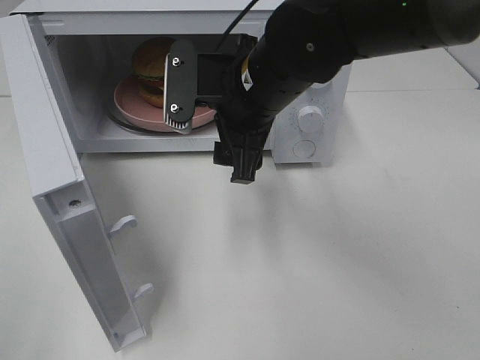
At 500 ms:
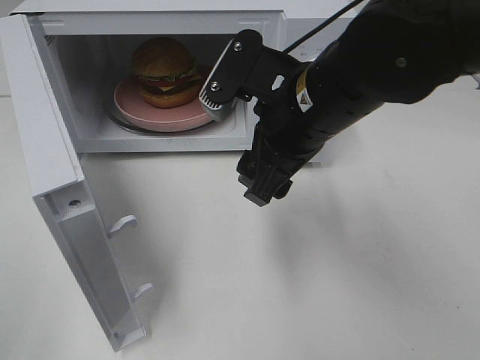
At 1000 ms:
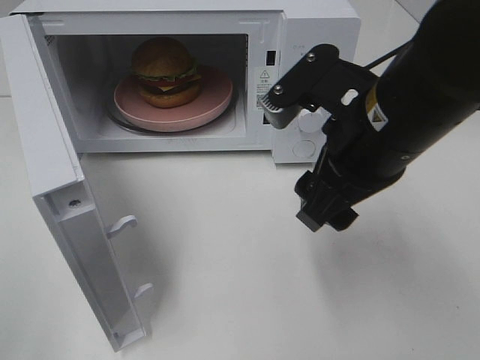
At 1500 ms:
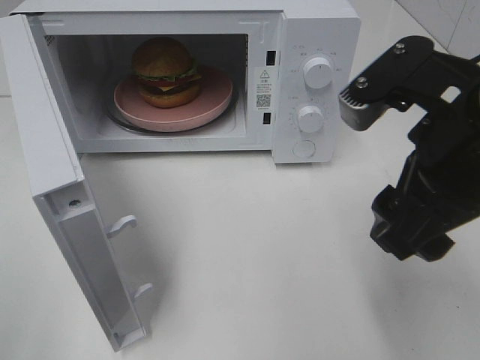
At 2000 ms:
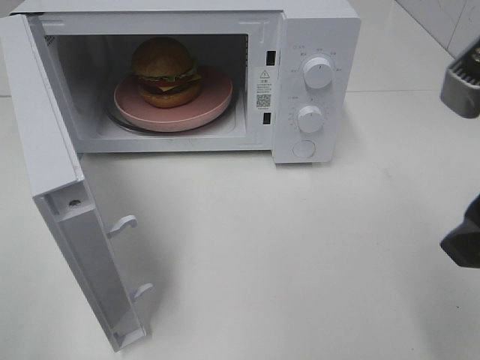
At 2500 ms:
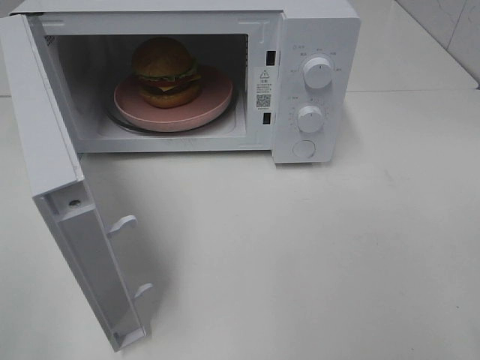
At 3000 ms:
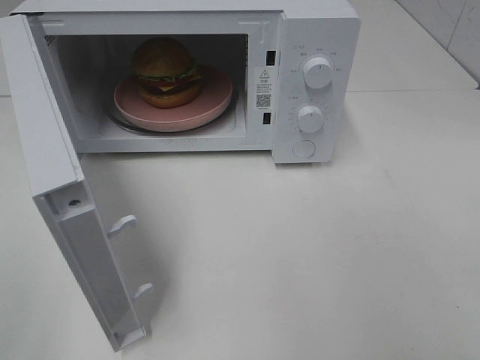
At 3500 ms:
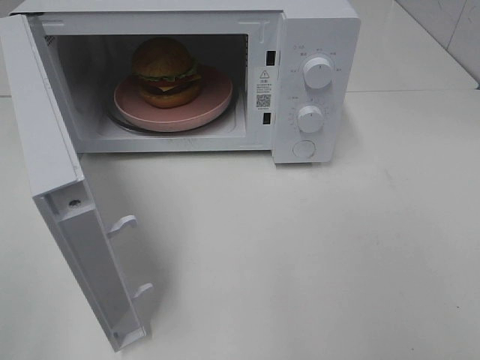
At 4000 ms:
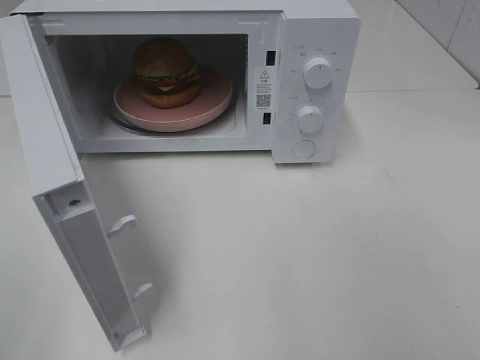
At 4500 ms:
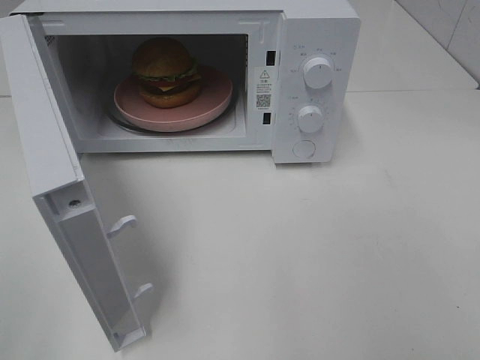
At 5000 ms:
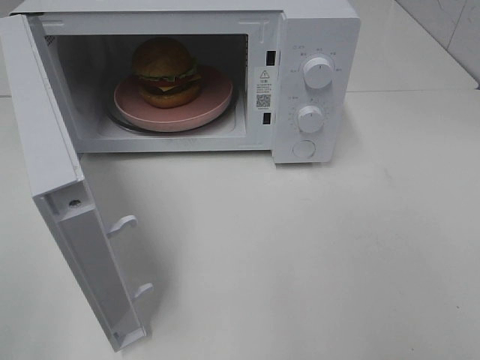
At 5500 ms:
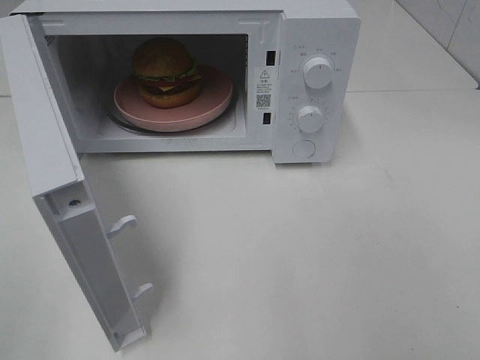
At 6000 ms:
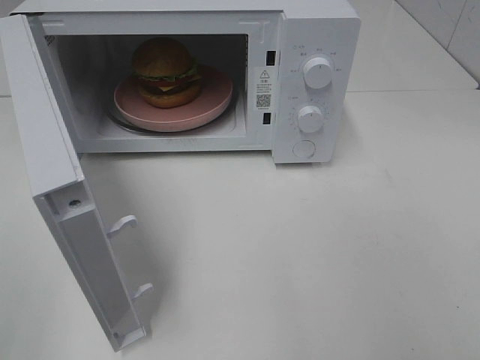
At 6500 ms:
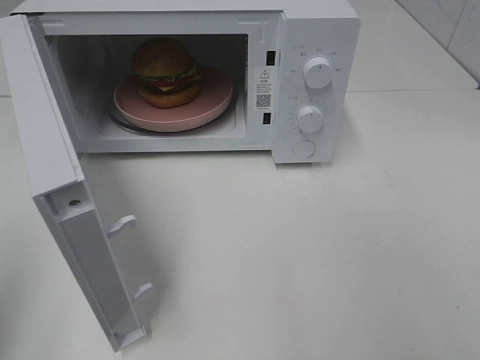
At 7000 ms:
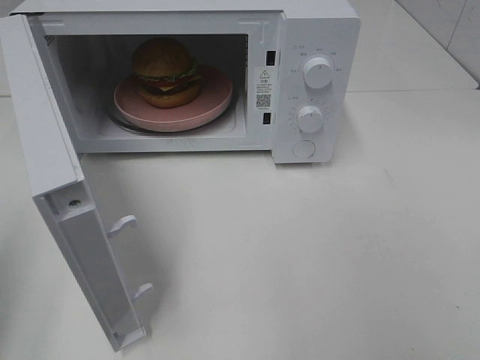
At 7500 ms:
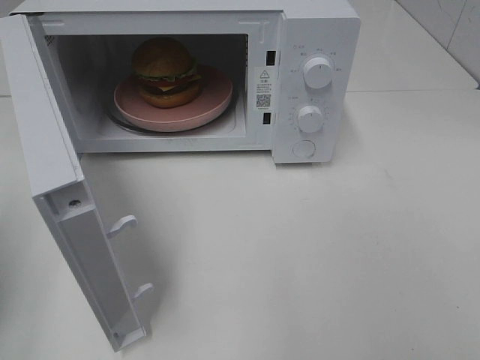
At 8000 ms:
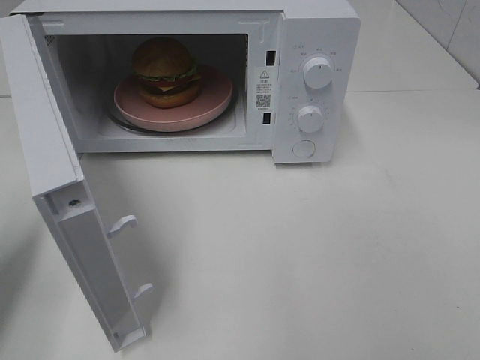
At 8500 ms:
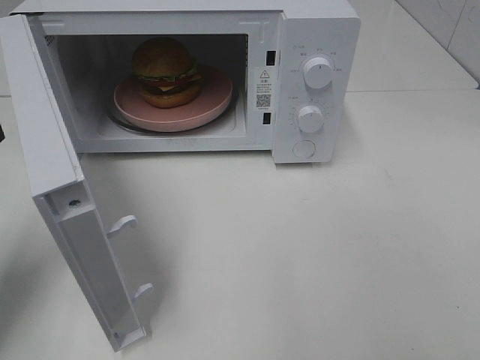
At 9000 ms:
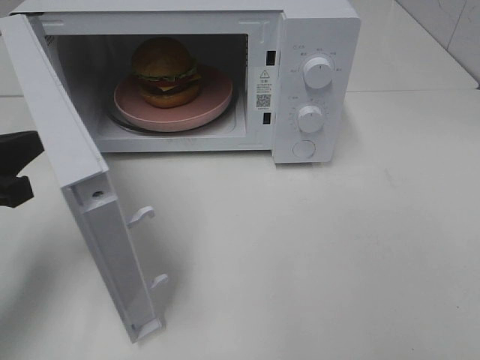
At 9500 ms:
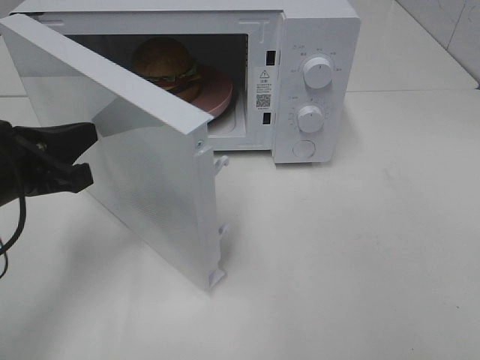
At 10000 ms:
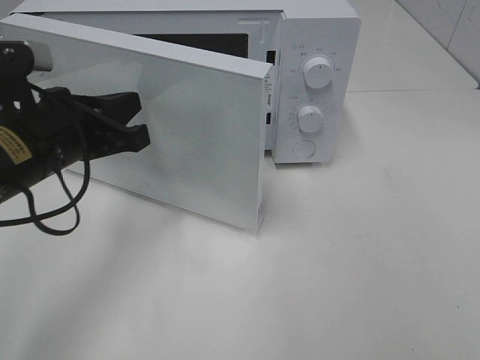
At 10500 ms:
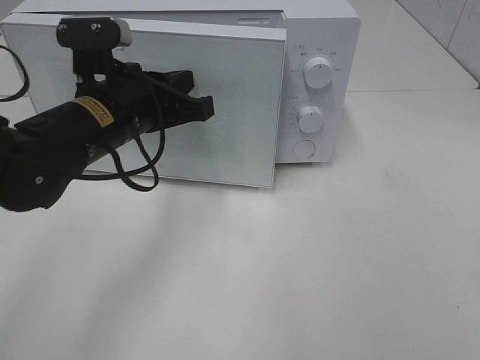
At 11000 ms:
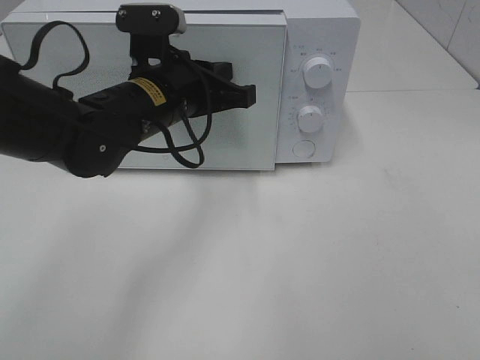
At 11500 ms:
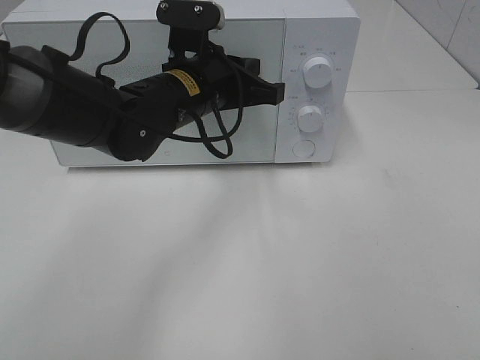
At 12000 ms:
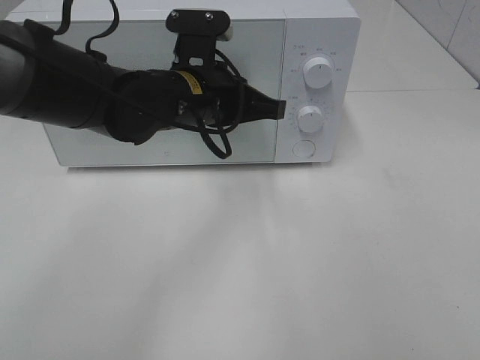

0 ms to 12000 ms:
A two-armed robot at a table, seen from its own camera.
Task of the whole recording: Heat the burger.
Step, 0 ms to 11500 ms: Left hand: close the microwave door.
0 ms to 2000 ms: The right gripper travels backward, to the right and upward by some 25 cm.
2000 ms to 4000 ms: The right gripper is displaced backward and to the right by some 15 cm.
6000 ms to 8000 ms: The left gripper is displaced forward and downward by some 20 cm, and closes.
8000 ms to 10000 ms: The left gripper is displaced to the right and forward by some 15 cm.
10000 ms to 12000 ms: The left gripper goes approximately 15 cm to the right and forward.

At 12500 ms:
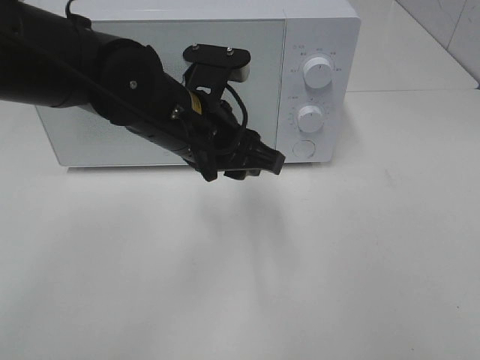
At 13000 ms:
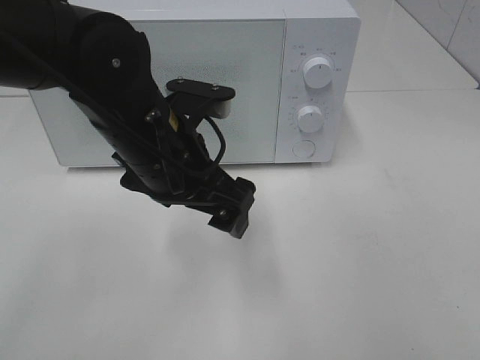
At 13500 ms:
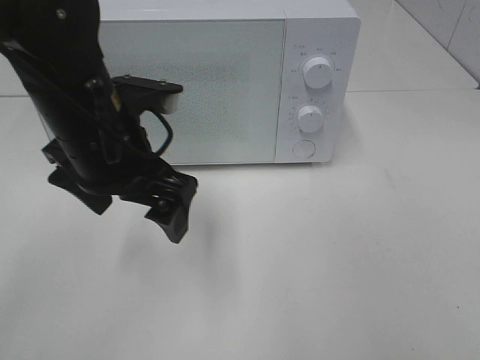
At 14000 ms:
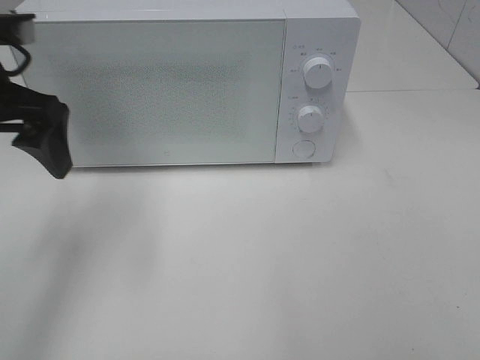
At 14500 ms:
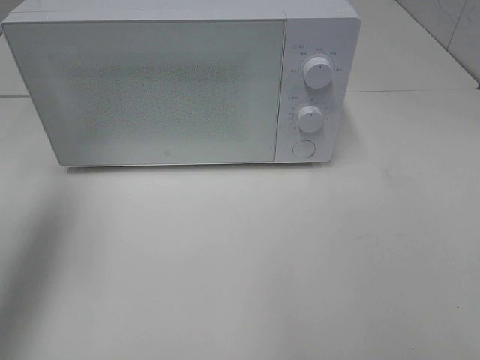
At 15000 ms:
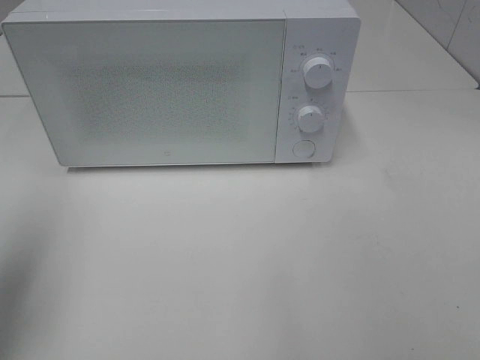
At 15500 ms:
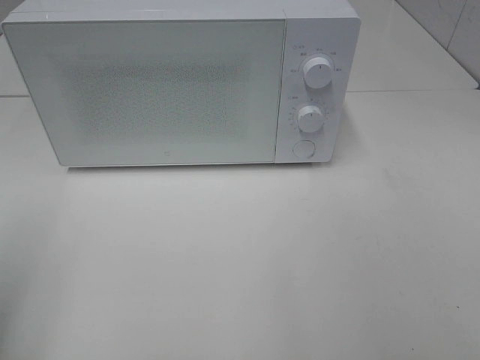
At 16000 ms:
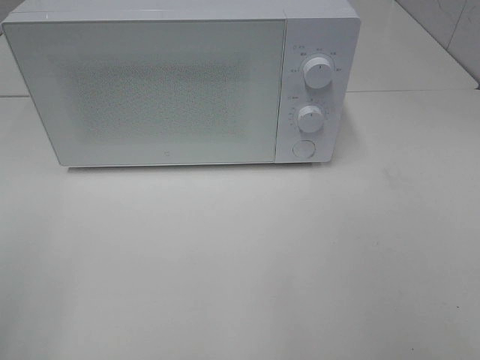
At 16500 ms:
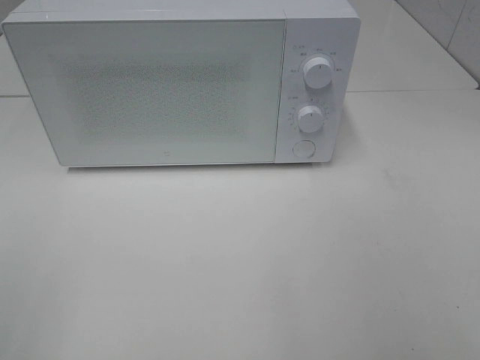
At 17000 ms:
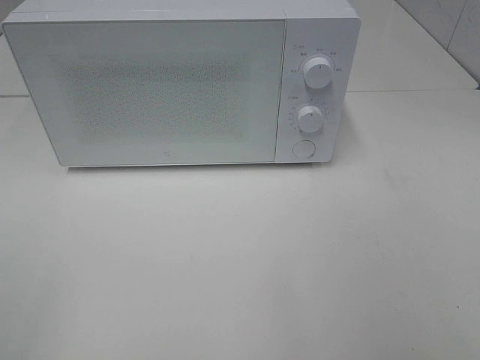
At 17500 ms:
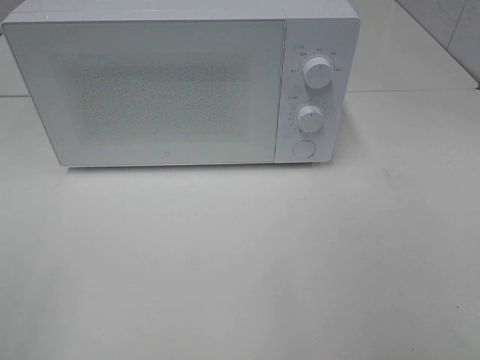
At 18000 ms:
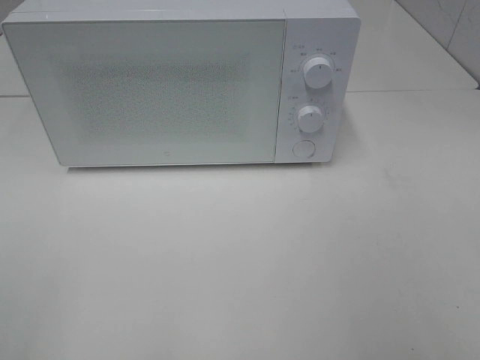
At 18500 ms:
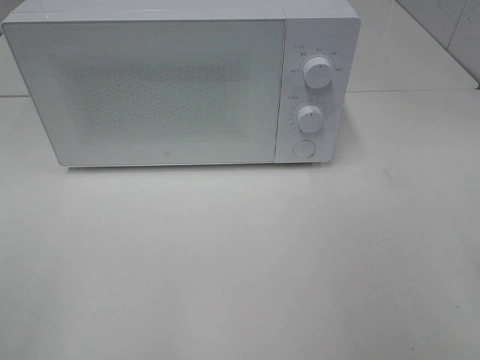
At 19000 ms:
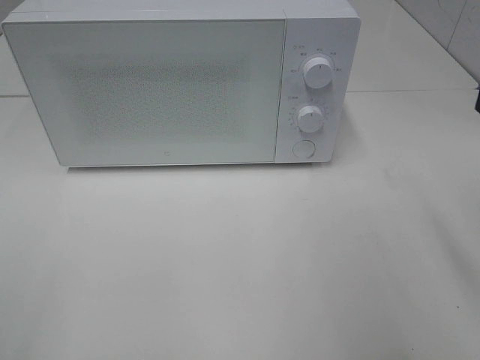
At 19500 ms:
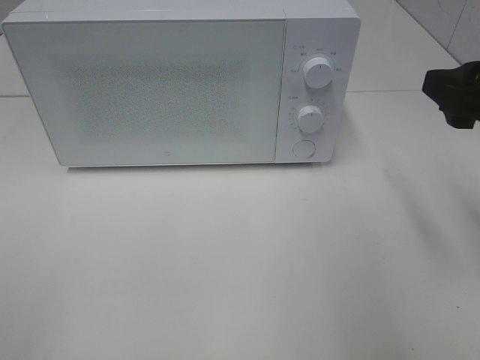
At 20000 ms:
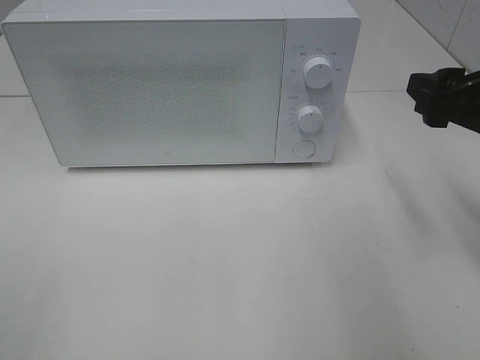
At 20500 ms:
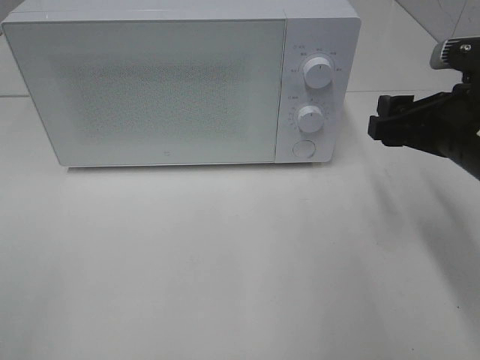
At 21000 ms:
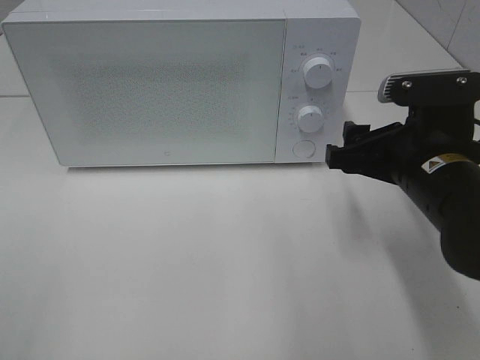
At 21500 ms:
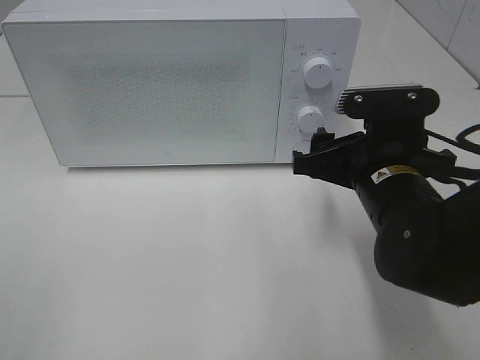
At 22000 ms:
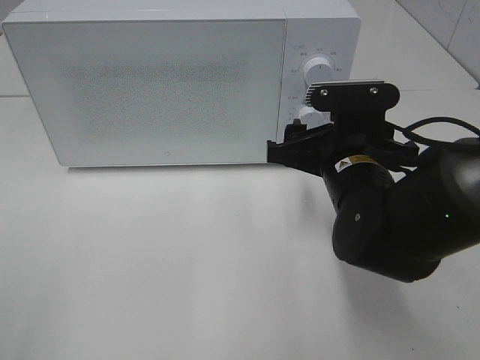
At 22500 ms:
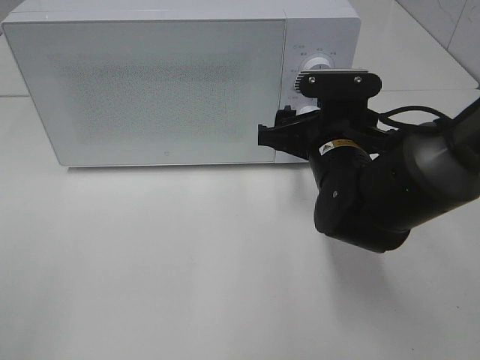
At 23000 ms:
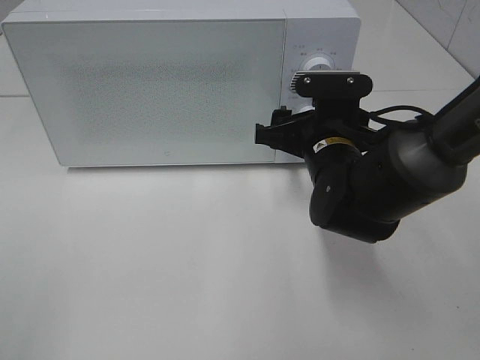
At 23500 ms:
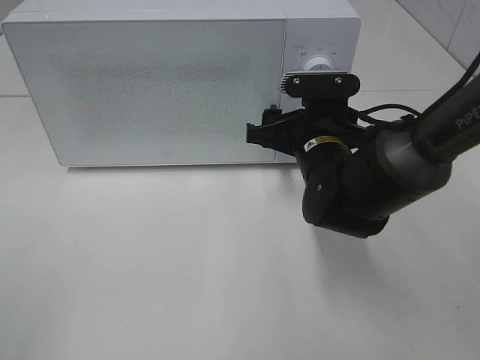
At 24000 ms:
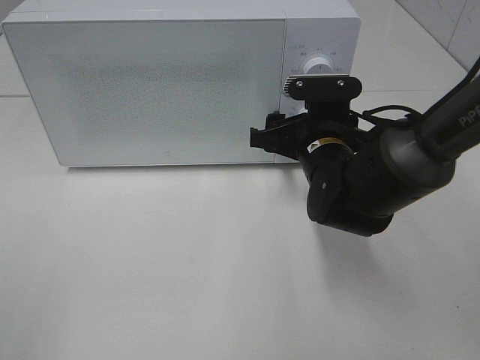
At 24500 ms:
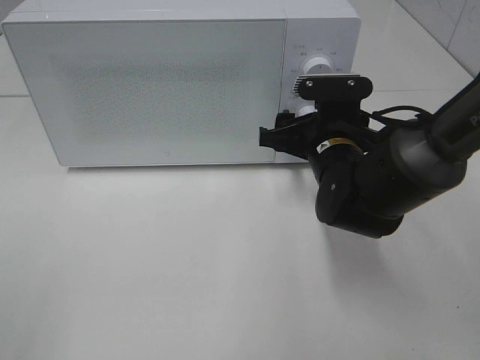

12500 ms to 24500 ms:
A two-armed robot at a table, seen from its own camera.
Task of the whole recording: Heat the burger.
12500 ms to 14500 ms: The left gripper shifts some 30 cm to the left and upward, and opens its fingers.
14500 ms to 16500 ms: The left gripper shifts some 25 cm backward.
18500 ms to 20500 ms: The right gripper heads forward and downward, covering roughly 20 cm.
20500 ms to 22500 ms: The right gripper travels to the left and downward by about 10 cm.
22500 ms to 24500 ms: The grippers move only a little.

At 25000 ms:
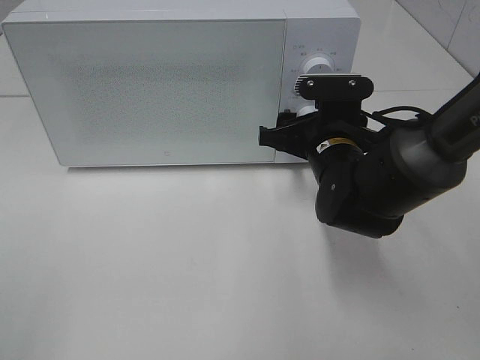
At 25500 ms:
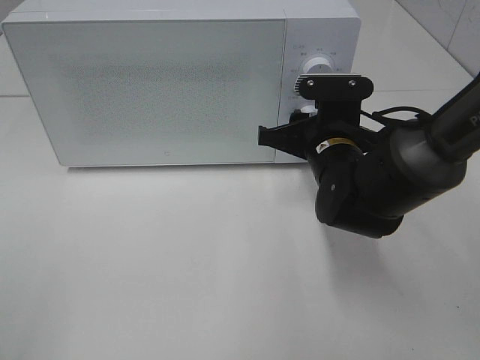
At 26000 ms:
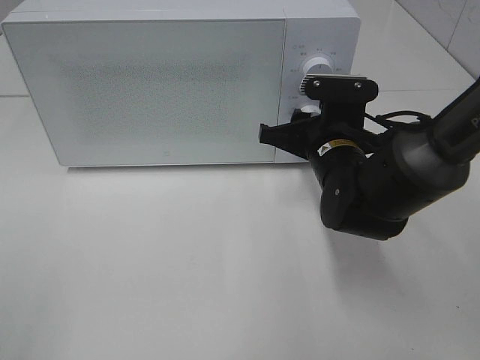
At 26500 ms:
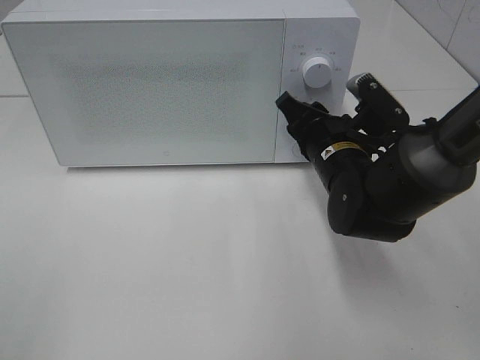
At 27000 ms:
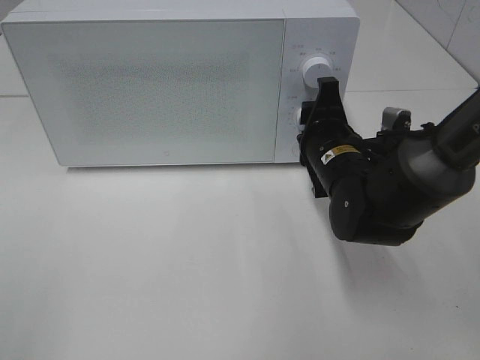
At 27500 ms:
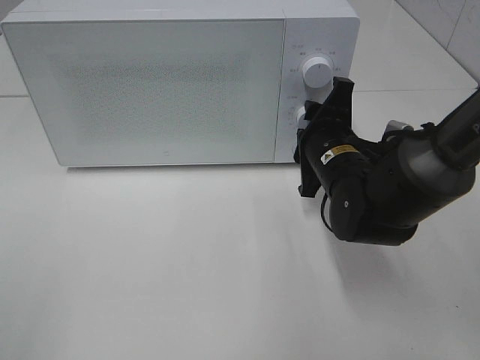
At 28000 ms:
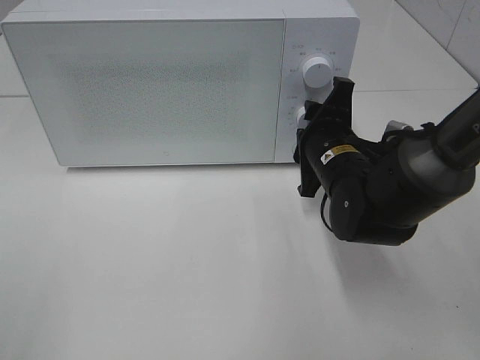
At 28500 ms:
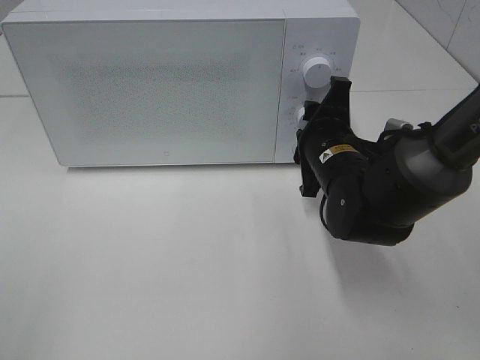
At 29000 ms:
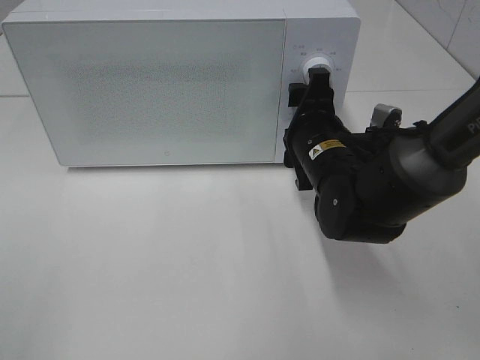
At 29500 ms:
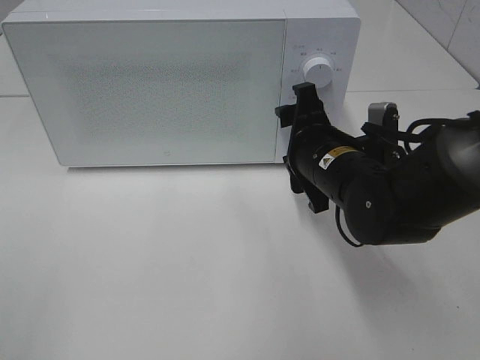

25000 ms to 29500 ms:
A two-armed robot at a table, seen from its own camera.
Task of the whole recording: Heat the burger.
Step, 25000 ms to 29000 ms: Right hand: twist timer button.
27000 ms to 29500 ms: The right gripper opens up.
